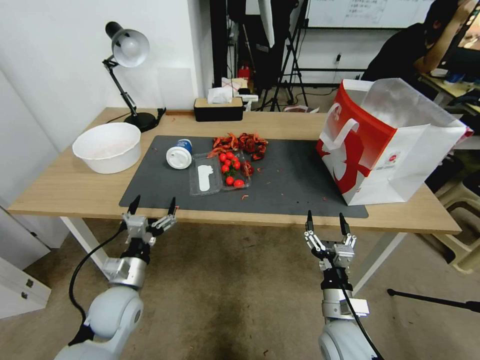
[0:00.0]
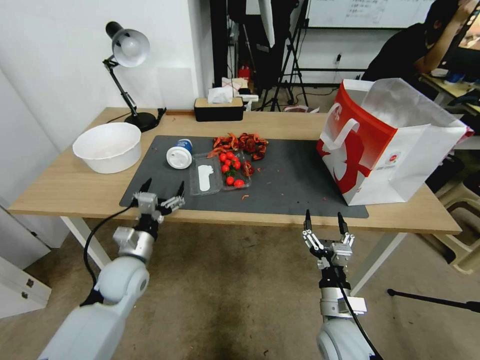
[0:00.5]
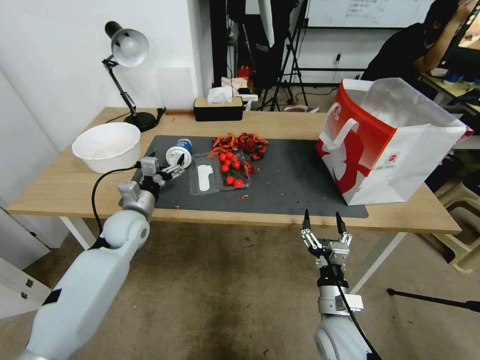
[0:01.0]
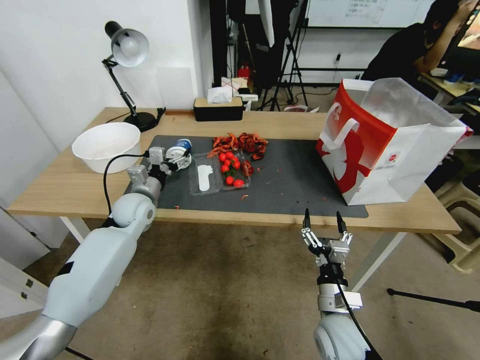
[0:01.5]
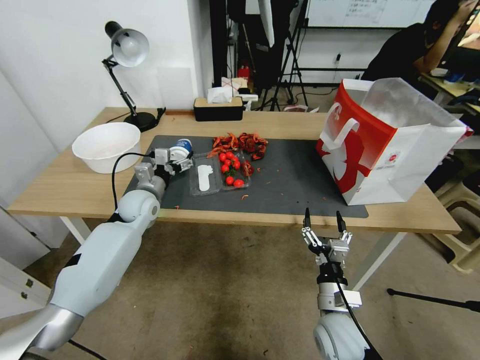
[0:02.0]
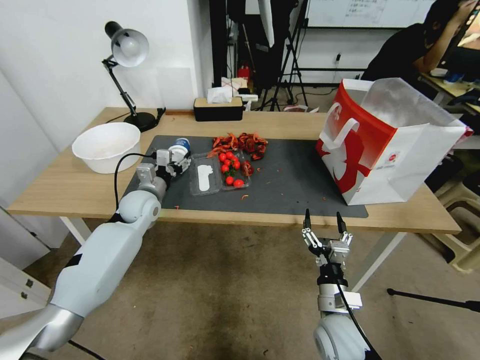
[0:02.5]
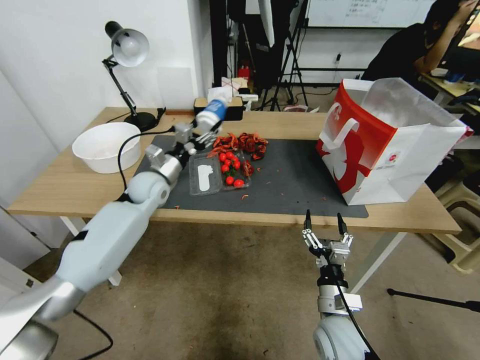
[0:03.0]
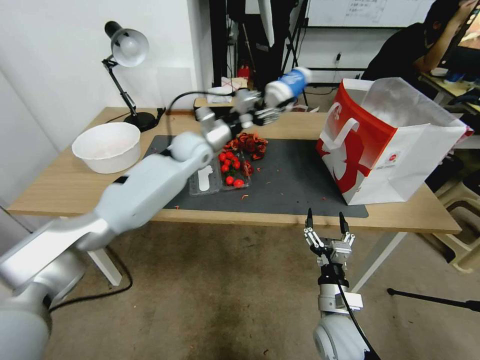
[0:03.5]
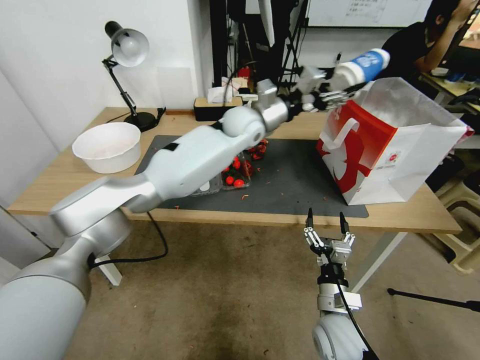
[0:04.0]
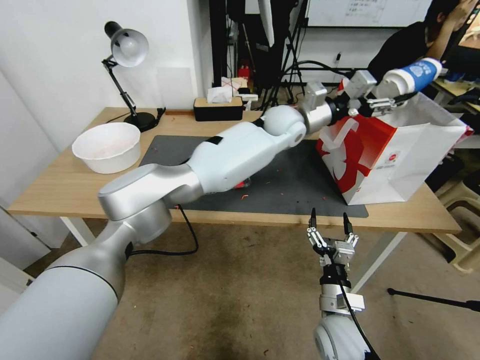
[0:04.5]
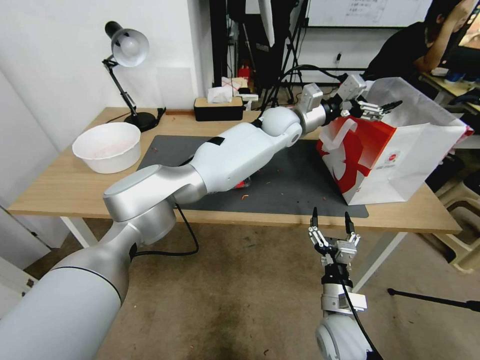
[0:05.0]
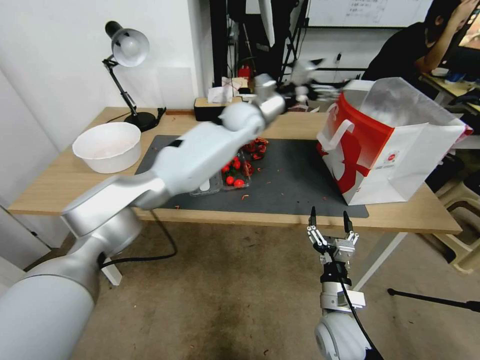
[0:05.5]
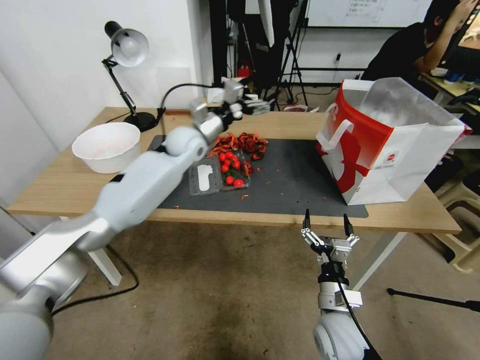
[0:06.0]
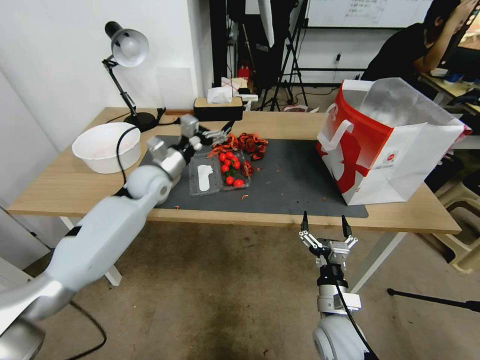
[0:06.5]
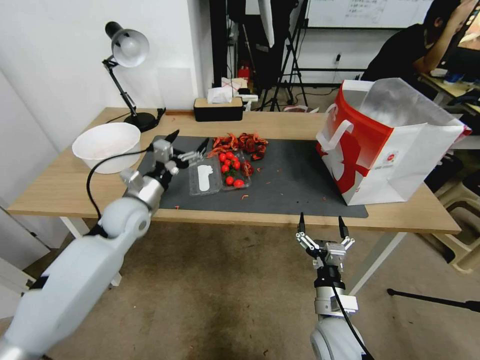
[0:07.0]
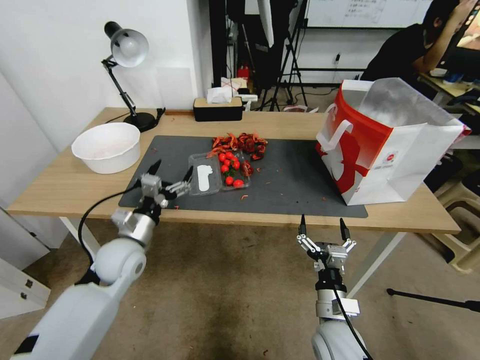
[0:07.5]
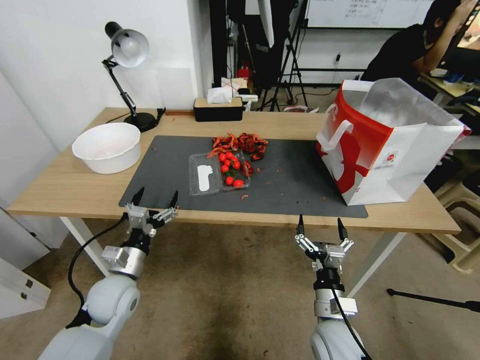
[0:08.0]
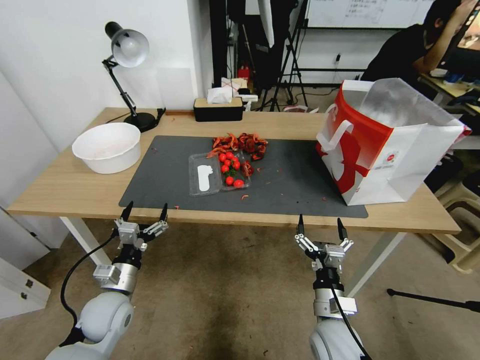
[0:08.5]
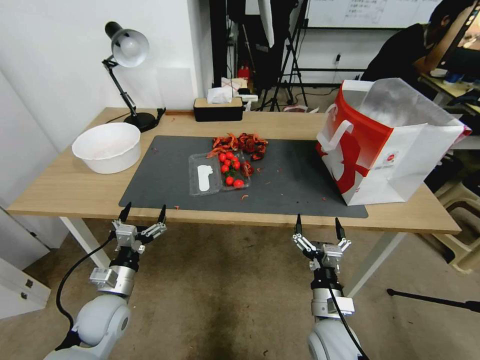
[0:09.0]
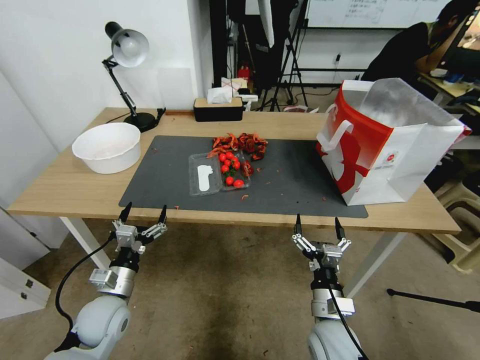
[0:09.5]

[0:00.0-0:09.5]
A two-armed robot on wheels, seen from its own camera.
0:00.0 to 0:02.0: The left gripper is displaced forward by roughly 25 cm.
0:02.0 to 0:04.0: The left gripper shifts roughly 30 cm to the right, upward and forward, and closes up.
0:04.0 to 0:05.5: The left gripper reaches about 15 cm to the right, then returns, and opens.
0:05.5 to 0:07.5: The left gripper goes approximately 40 cm to the left, backward and downward.
0:07.5 to 0:09.5: The left gripper goes approximately 10 cm backward and downward.
